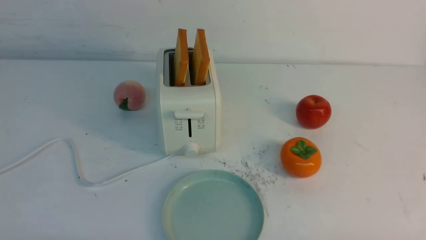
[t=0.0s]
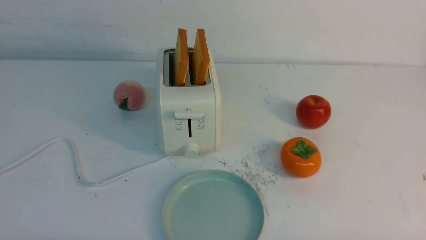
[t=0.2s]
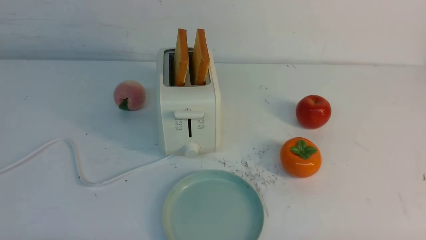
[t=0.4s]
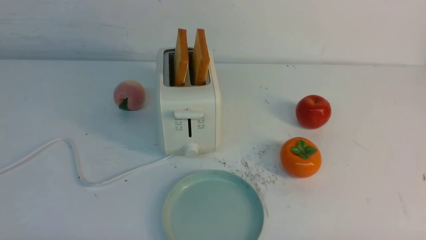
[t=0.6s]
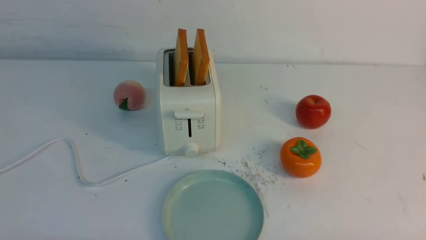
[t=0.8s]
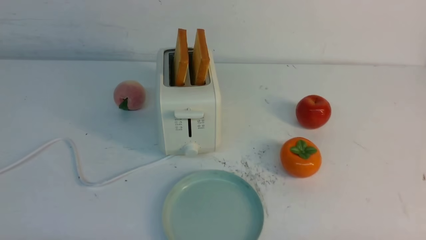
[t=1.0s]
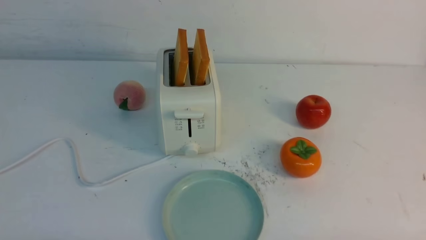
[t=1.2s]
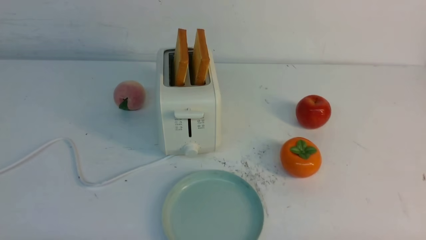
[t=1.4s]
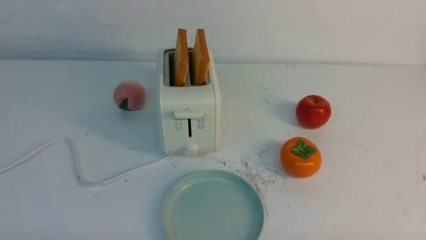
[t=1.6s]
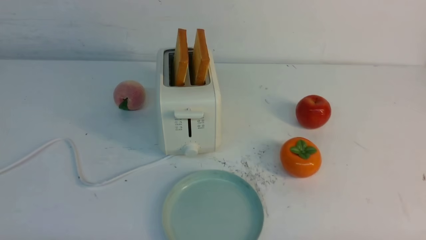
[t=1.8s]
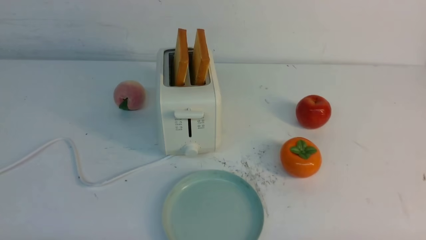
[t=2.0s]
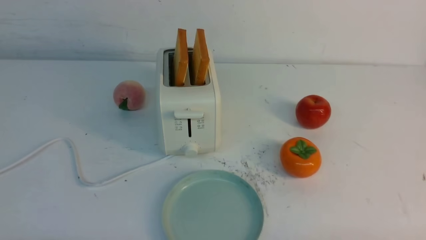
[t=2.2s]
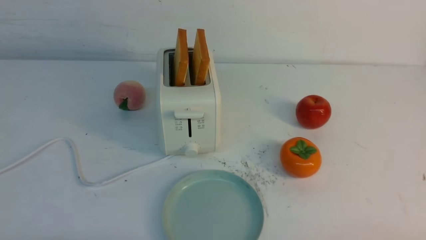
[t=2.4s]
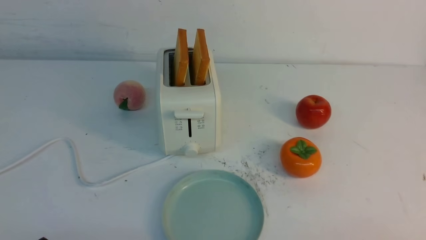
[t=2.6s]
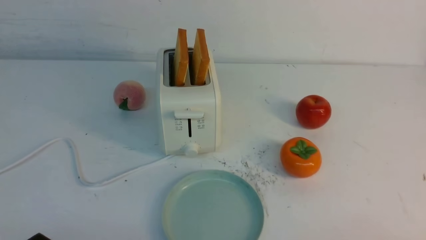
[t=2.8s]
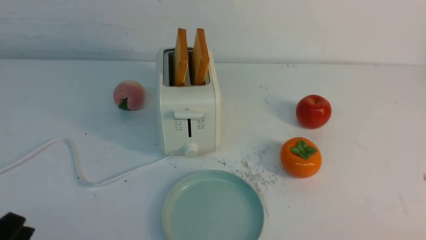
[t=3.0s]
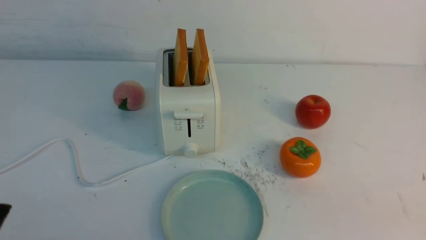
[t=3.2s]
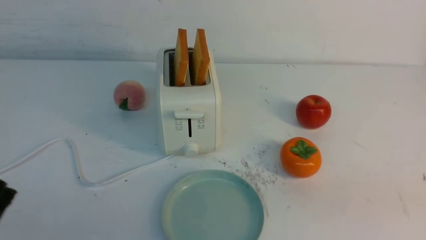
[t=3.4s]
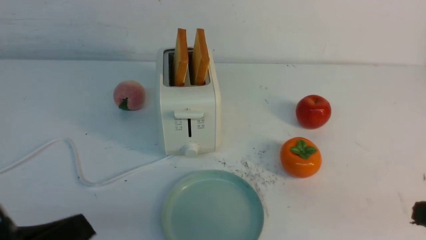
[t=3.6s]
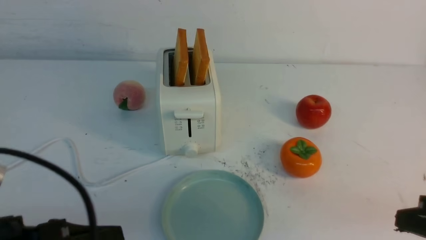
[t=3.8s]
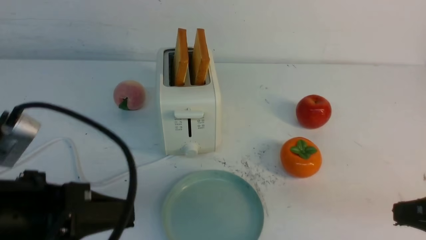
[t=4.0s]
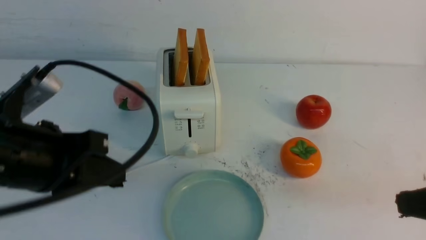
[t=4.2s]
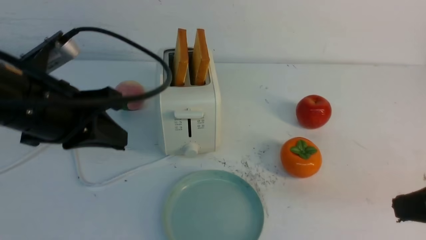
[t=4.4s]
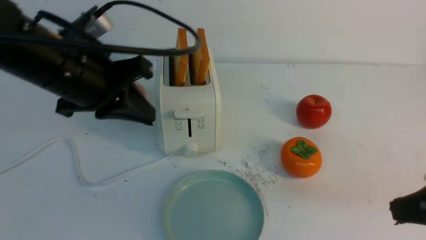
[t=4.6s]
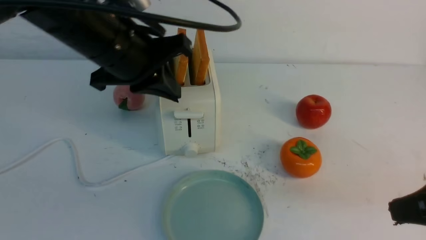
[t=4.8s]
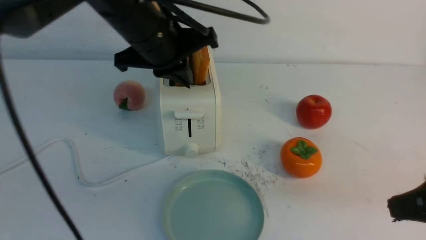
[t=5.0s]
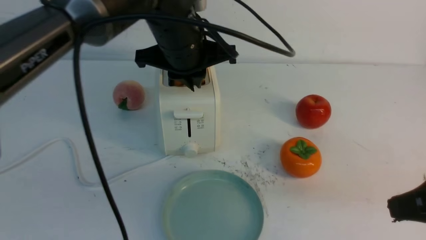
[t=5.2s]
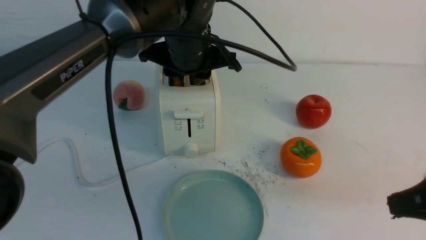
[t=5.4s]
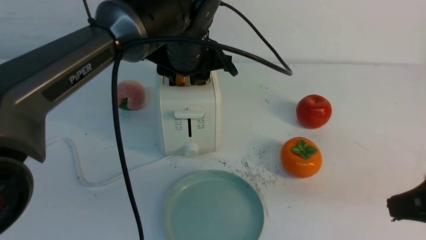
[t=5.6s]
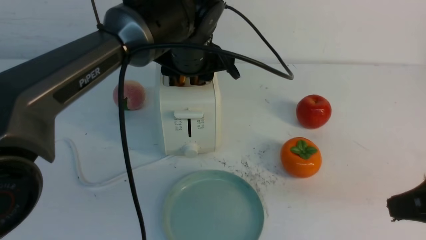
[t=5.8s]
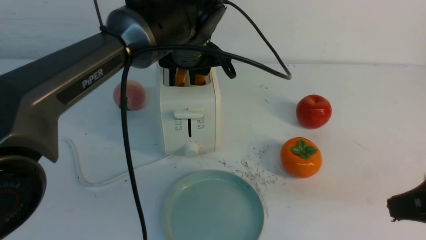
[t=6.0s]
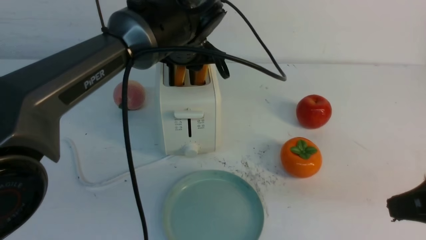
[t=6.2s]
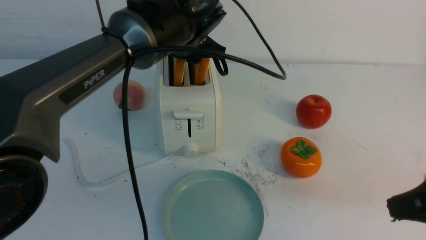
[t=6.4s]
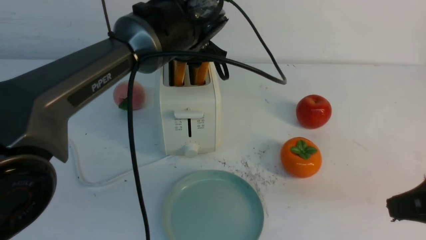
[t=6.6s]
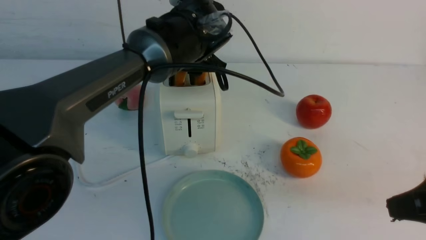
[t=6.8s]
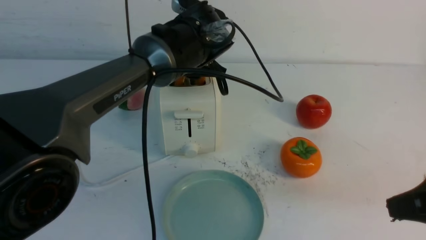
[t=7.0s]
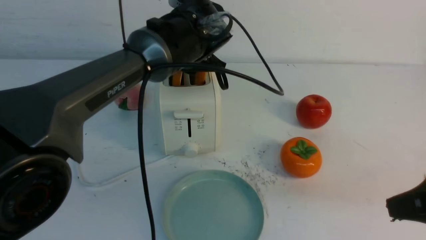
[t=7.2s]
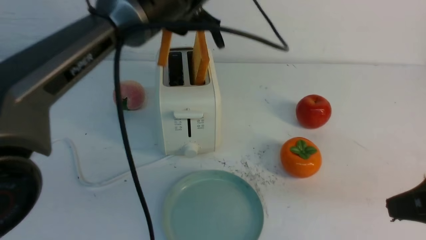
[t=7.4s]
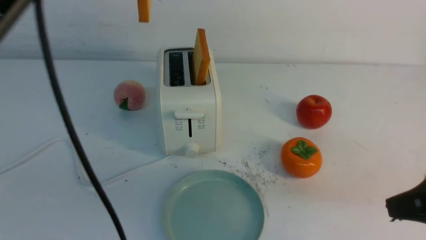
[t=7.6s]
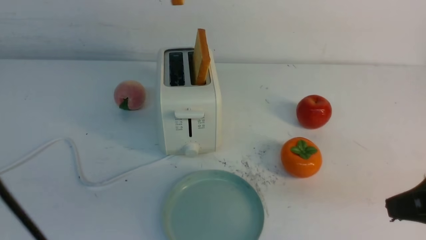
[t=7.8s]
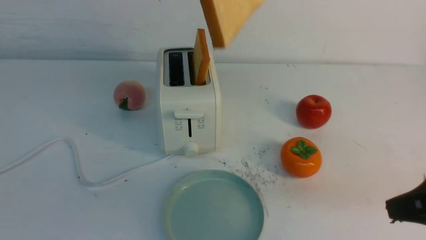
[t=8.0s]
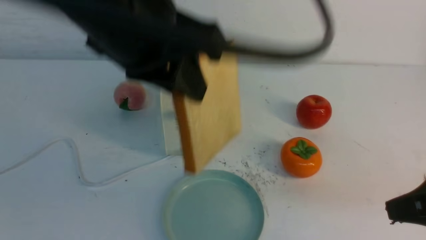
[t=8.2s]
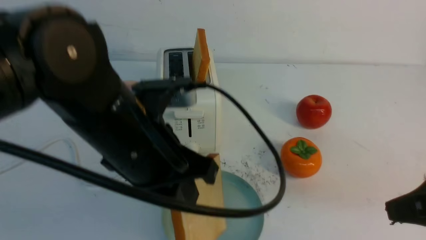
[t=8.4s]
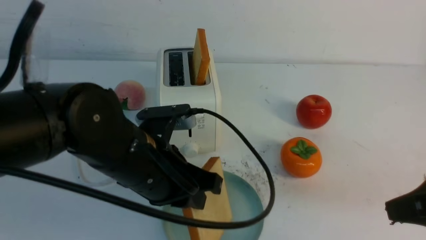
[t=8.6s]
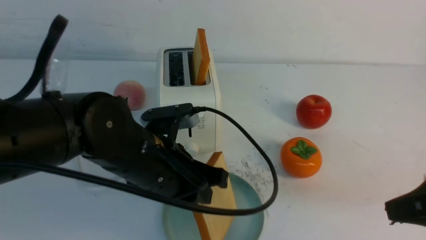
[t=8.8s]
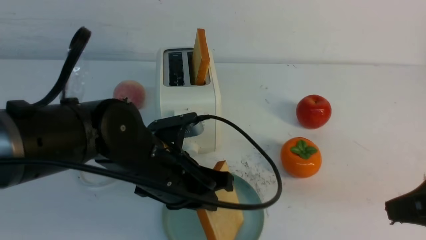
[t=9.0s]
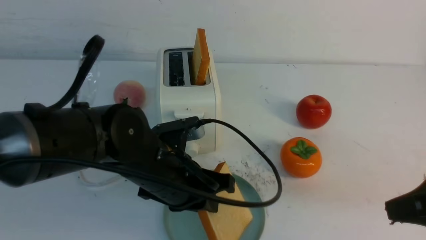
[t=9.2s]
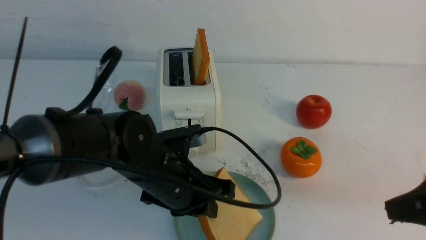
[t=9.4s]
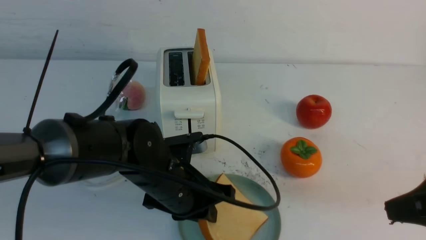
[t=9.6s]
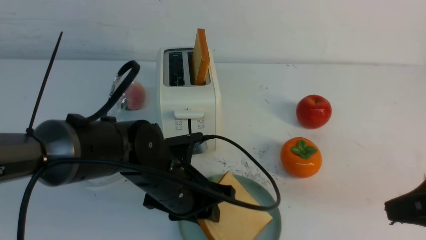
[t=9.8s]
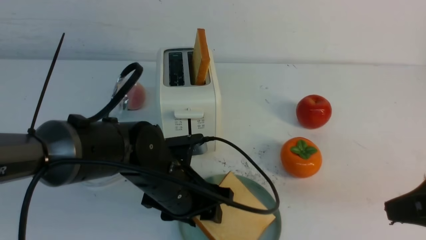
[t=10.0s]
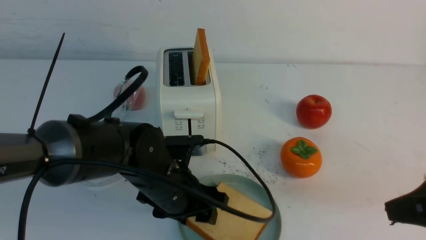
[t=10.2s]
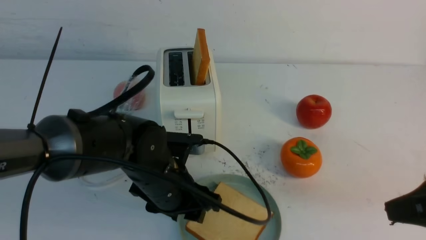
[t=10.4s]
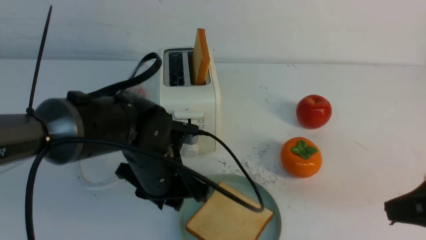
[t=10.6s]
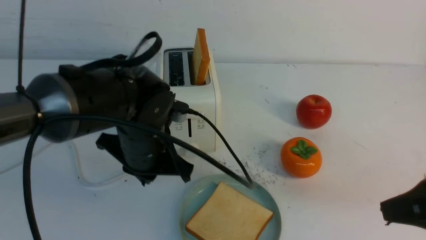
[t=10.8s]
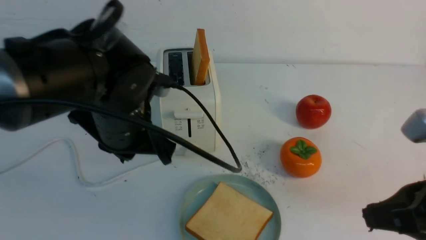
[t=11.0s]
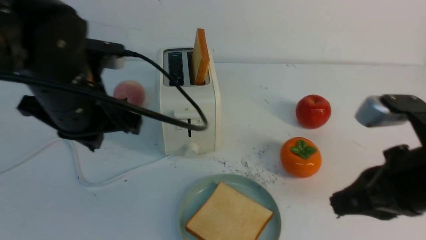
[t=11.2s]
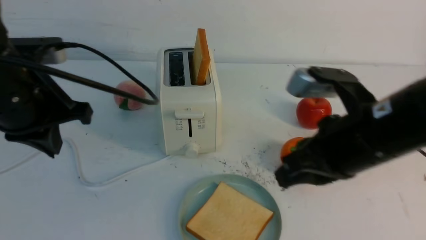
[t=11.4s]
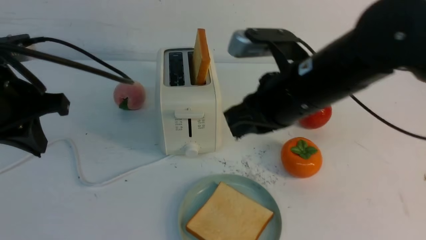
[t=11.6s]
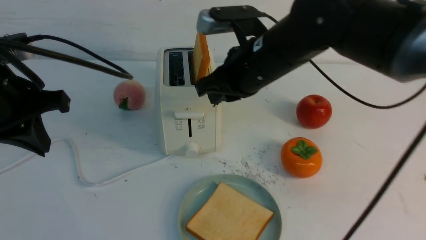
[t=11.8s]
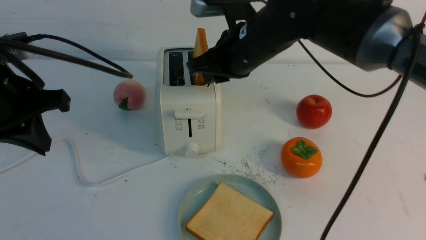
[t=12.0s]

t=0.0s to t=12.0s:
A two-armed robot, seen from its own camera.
Task of the whole recording: take toasted bread from bread machine on white table place on plate.
Step, t=0.0s to t=7.6s: use the left arm to take out a slice of bread.
Step, t=7.8s to t=10.4s: use the left arm to put a slice of bread into the empty plate.
t=0.0s to t=1.6s: Both grippers stay put.
t=3.0s to t=4.4s: The left gripper heads forward and upward, covering some 25 cm, and closes its fingers. The right gripper goes approximately 15 cm upward and forward, and closes its fingers.
t=4.4s to t=6.0s: The left gripper is displaced forward and to the right by some 20 cm, and opens.
t=6.0s to t=7.6s: The left gripper shifts roughly 15 cm upward, and closes up.
t=7.6s to t=9.0s: The left gripper travels downward and backward by roughly 25 cm.
t=9.0s to t=10.4s: The left gripper opens up.
t=10.4s to t=12.0s: The right gripper is displaced forward and to the left by some 30 cm. The left gripper travels to the left and upward by some 25 cm, and closes its fingers.

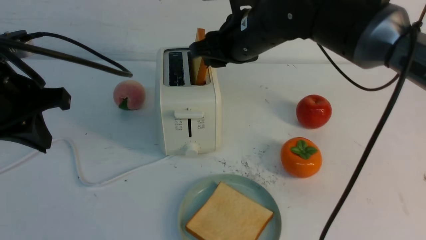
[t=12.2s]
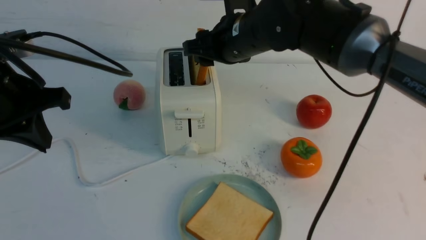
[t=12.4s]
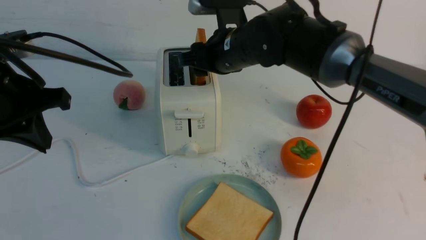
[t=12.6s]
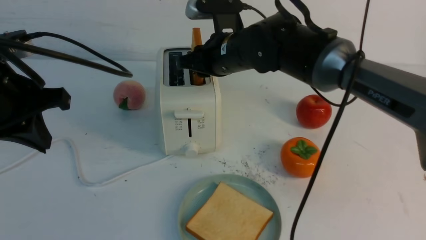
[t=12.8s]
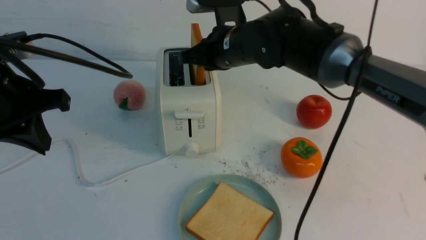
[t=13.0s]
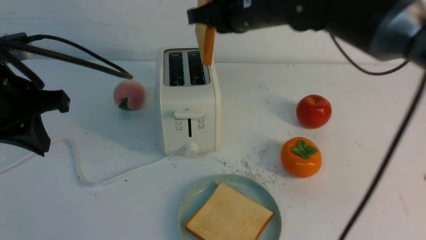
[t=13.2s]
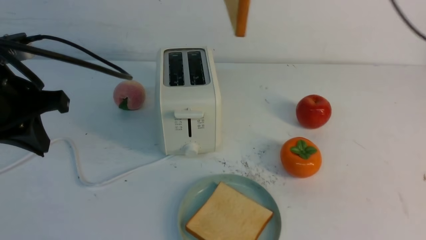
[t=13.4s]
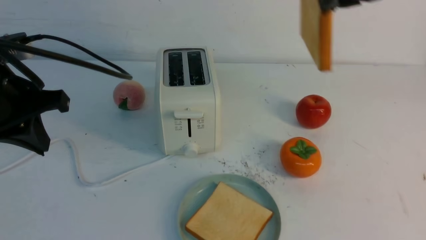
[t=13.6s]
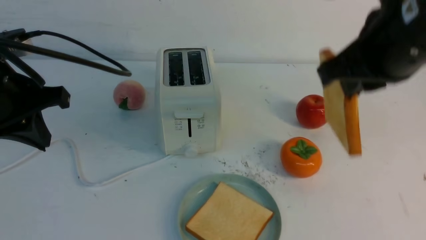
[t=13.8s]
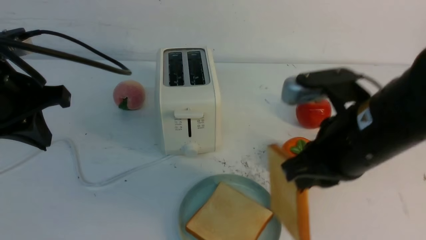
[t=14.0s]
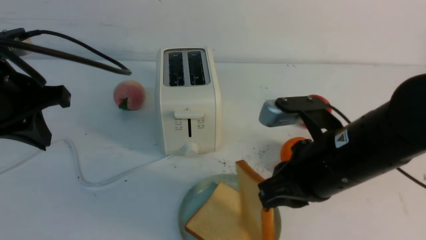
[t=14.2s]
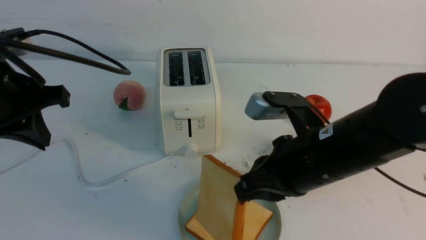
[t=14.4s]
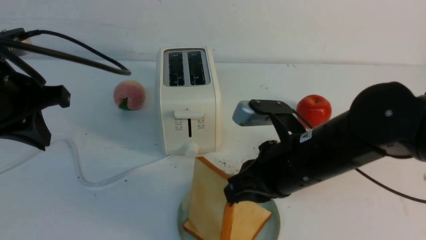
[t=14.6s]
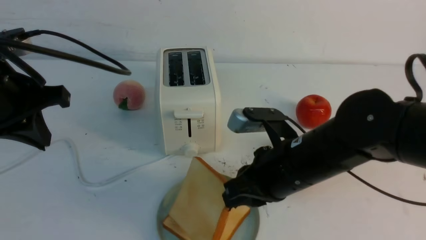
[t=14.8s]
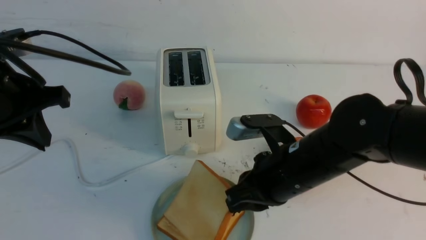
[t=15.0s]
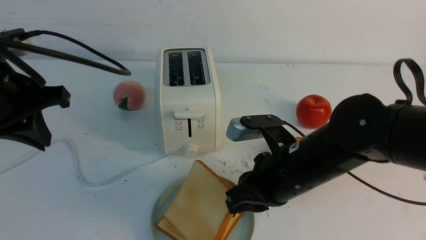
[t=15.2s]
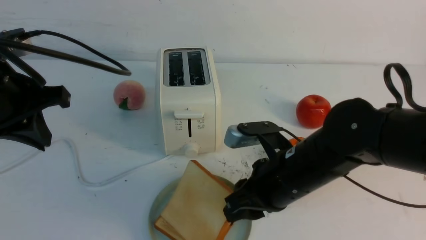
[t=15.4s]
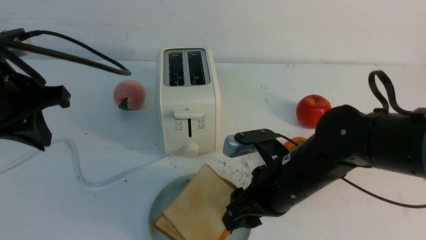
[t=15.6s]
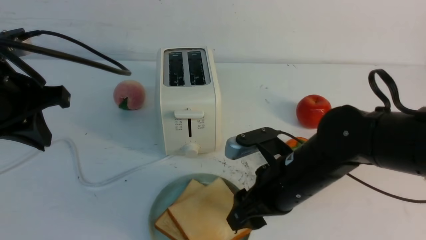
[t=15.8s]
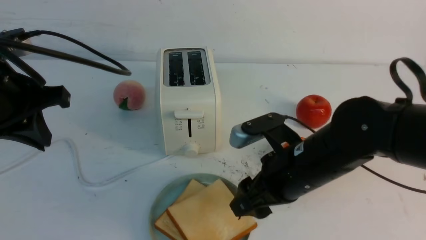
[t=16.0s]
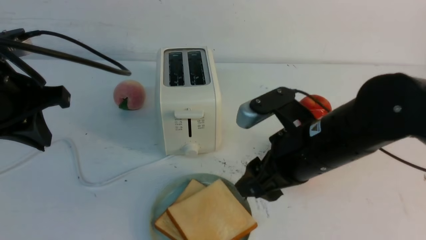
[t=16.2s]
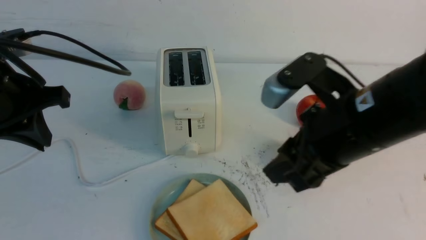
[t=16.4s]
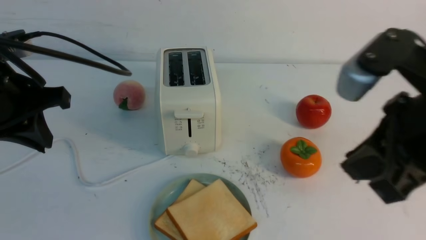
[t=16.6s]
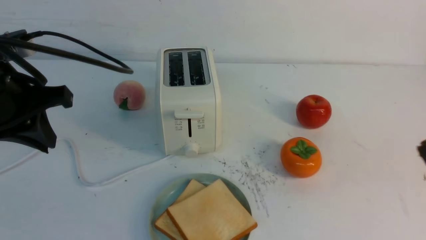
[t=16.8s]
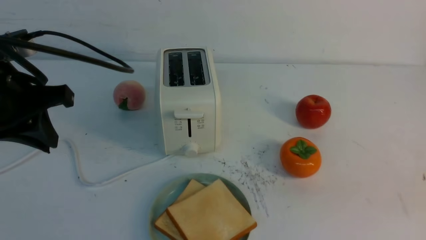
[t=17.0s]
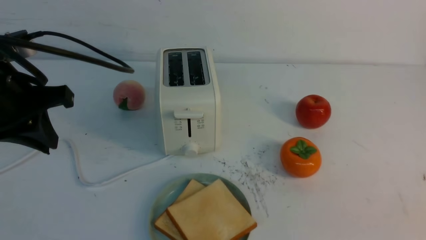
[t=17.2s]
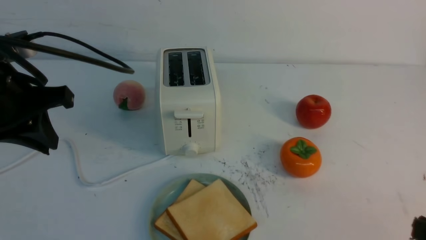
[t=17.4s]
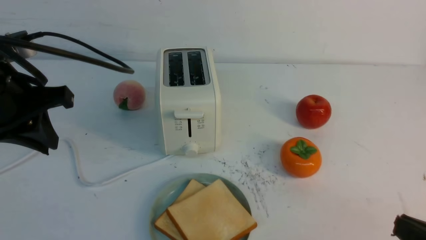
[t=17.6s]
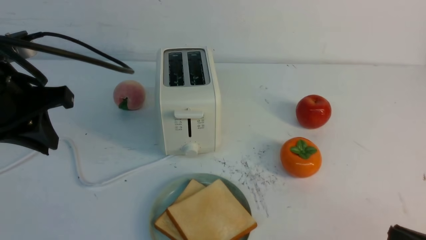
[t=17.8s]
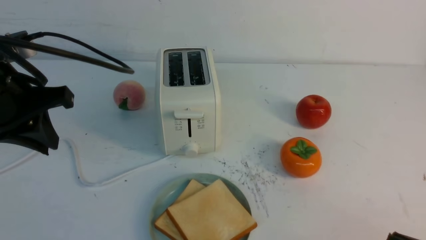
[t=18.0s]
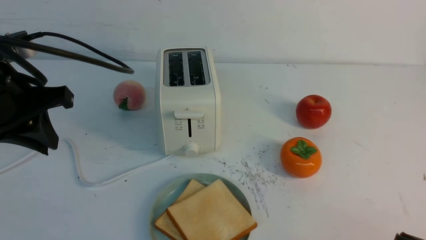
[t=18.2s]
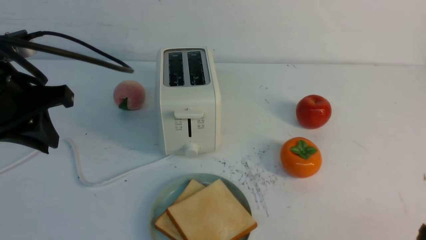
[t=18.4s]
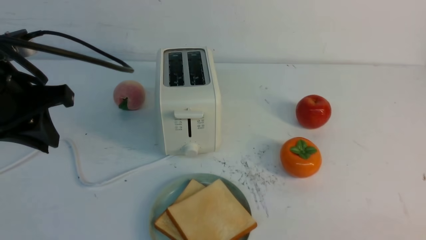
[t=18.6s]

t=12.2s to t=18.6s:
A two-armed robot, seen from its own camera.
Task of the whole recording: take toasted bread from bread machine on white table place on plate.
Step, t=13.2s to t=16.0s: use the right arm to put a slice of bread into the plate.
t=12.2s to t=13.8s: The right gripper moves backward and to the right, some 20 cm, and closes up.
t=13.8s to t=15.4s: The right gripper shifts about 15 cm downward, and opens.
t=15.4s to t=17.0s: The right gripper moves backward, to the right and upward, roughly 30 cm, and closes its fingers.
t=17.0s to t=18.6s: The right gripper goes some 15 cm downward.
